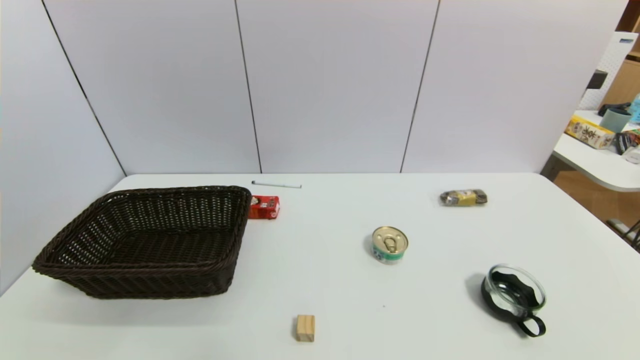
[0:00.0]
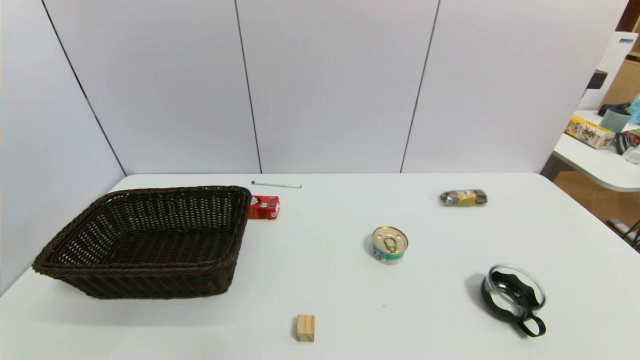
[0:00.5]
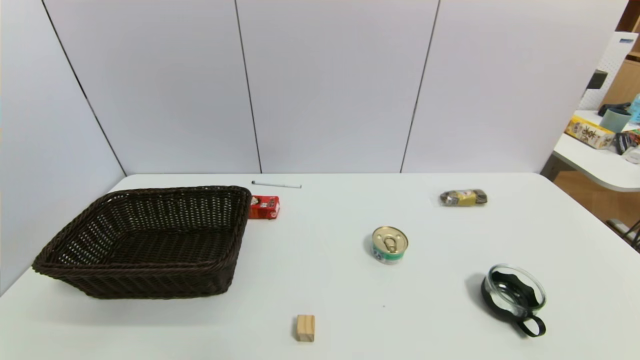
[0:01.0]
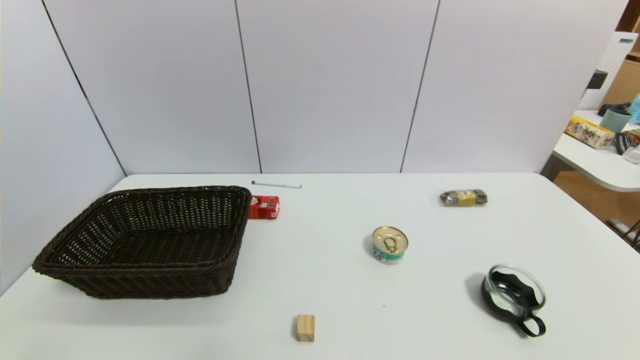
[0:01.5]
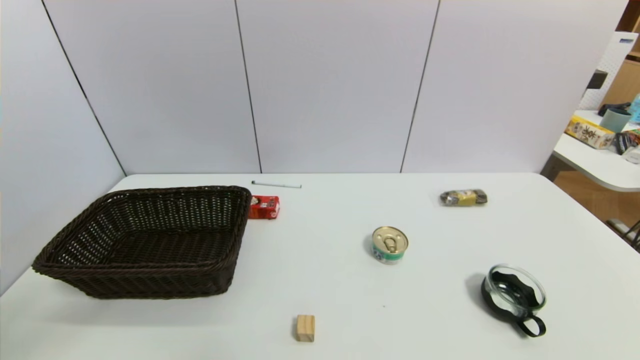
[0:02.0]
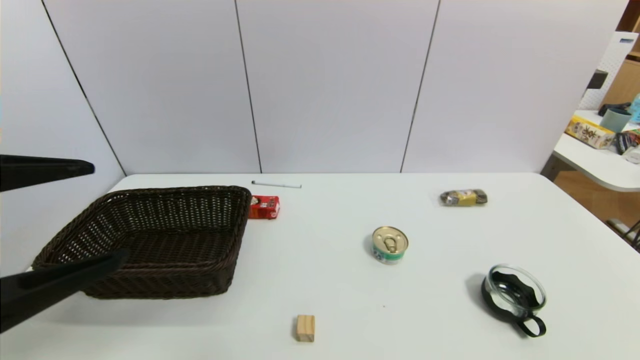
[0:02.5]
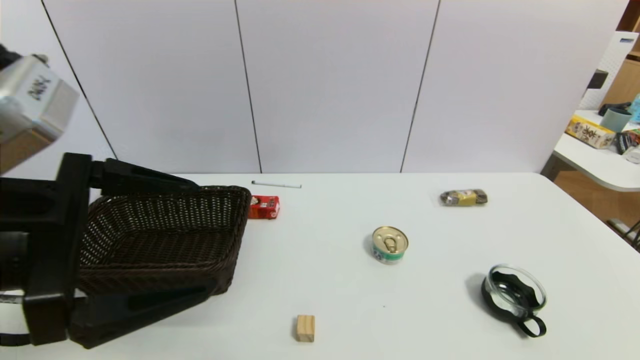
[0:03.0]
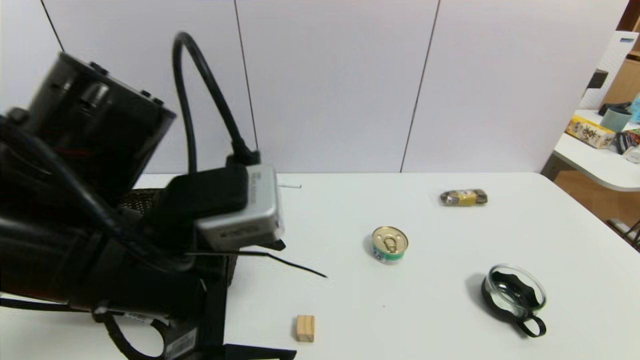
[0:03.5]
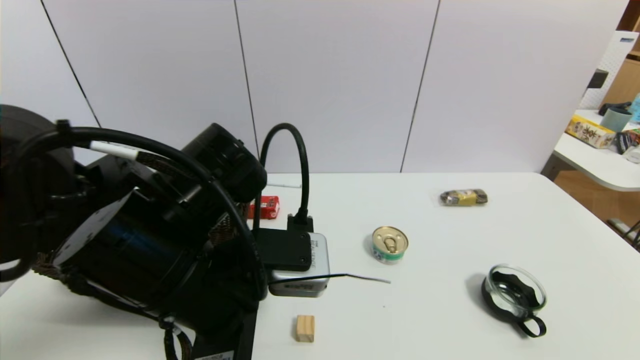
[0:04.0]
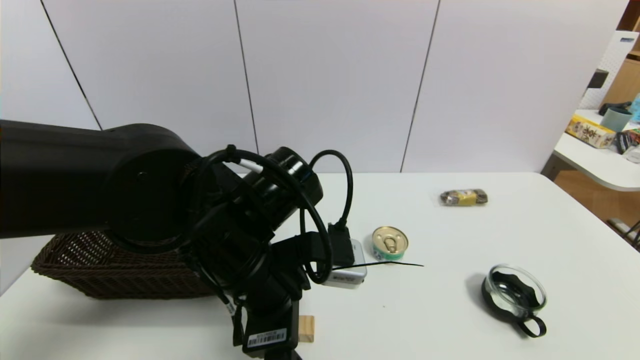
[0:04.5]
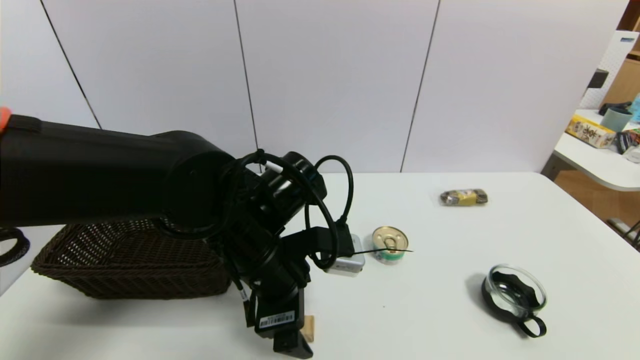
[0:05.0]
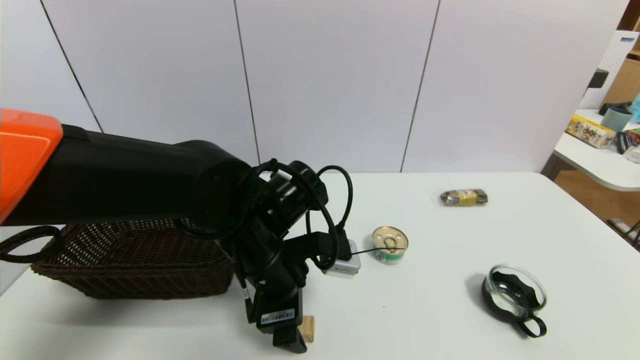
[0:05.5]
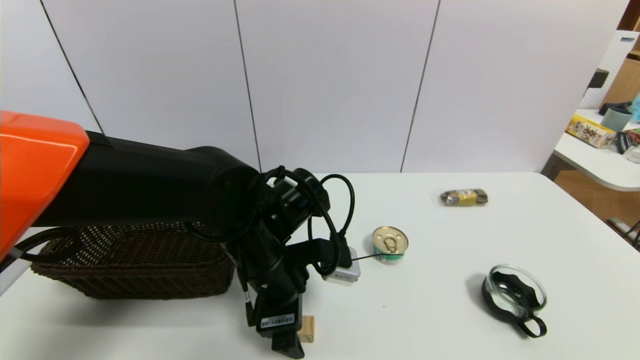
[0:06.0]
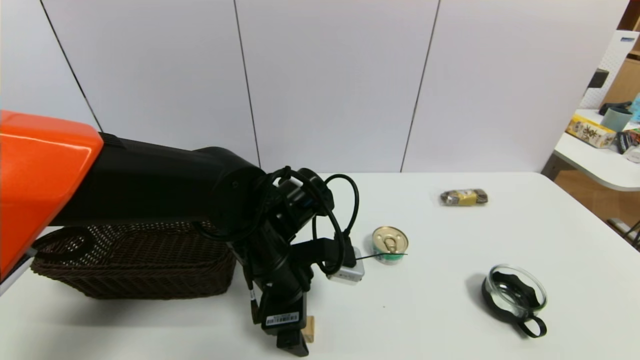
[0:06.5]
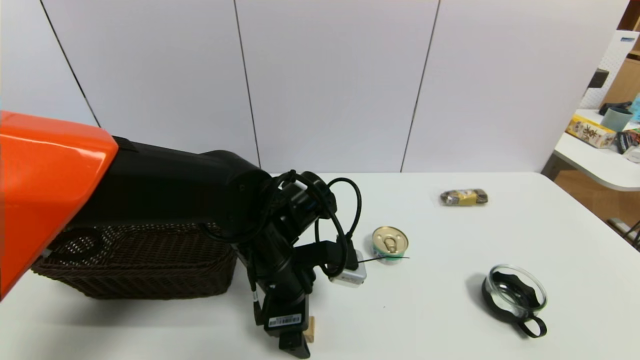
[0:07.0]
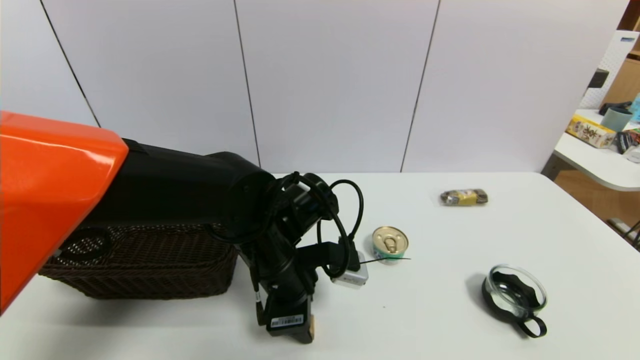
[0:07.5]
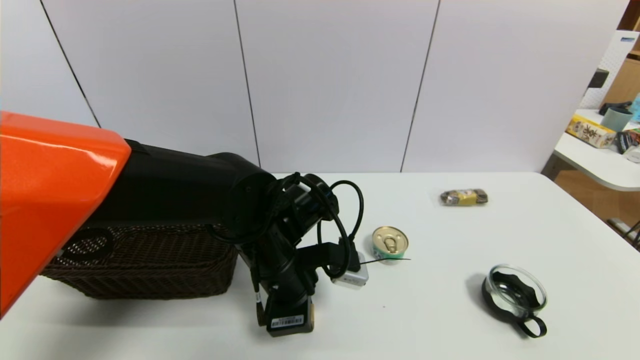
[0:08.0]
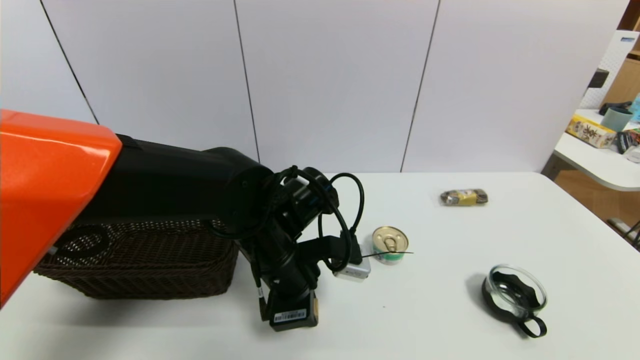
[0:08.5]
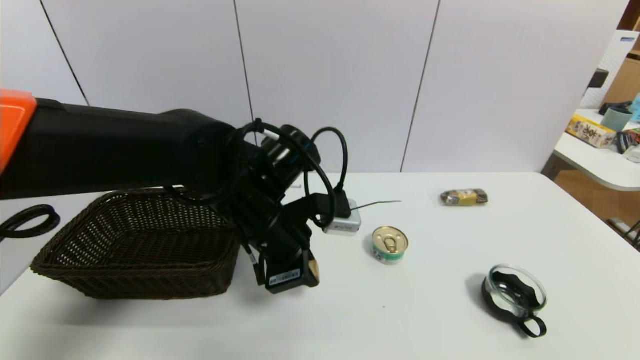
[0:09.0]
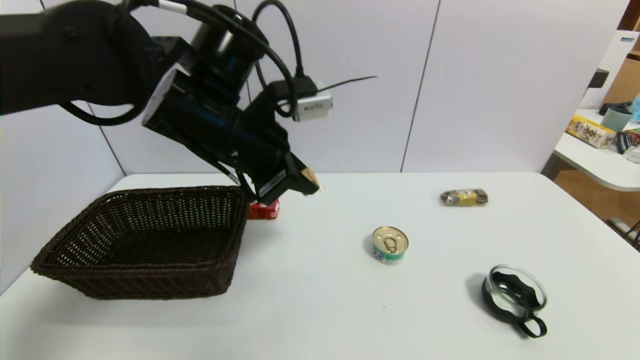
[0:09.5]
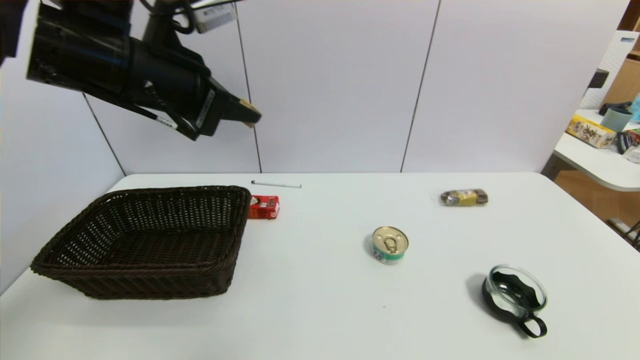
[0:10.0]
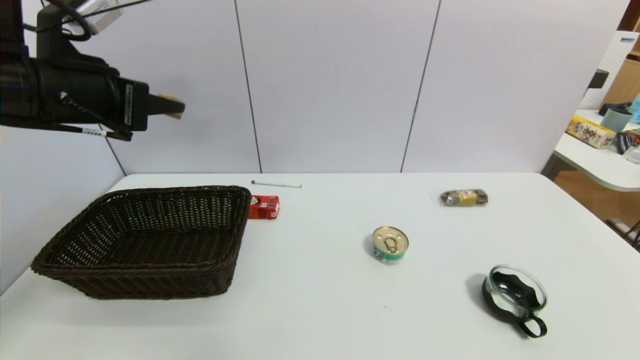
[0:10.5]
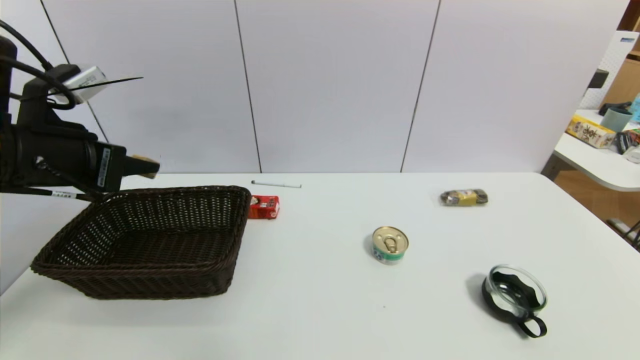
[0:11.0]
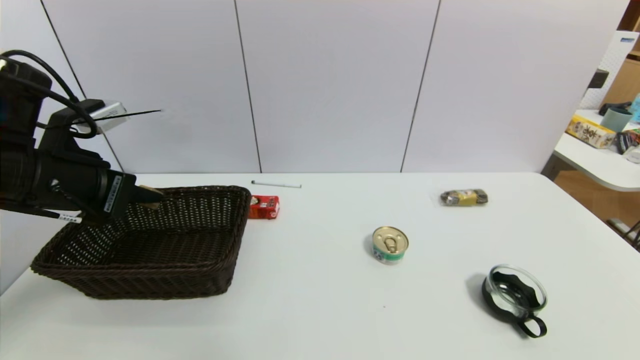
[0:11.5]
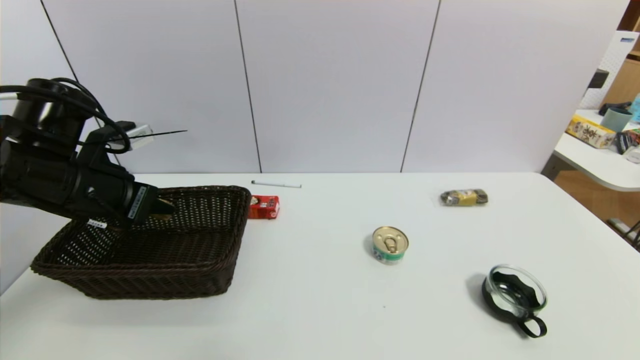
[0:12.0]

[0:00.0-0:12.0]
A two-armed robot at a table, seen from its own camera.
Task of the whole recording: use a gripper to pick the target object and place on the brown basket.
Step, 0:00.0 to 0:07.5: Grasp the square wooden block with the left gripper.
0:02.0 to 0:04.0: The left gripper moves to the right, forward and downward, approximately 25 cm.
0:04.0 to 0:06.0: The left gripper shifts some 10 cm forward and downward.
0:06.0 to 0:08.0: The left gripper closes up.
0:08.0 to 0:10.0: The left gripper travels upward and to the left by some 25 cm.
0:10.0 to 0:12.0: The left gripper shifts about 15 cm downward and to the left.

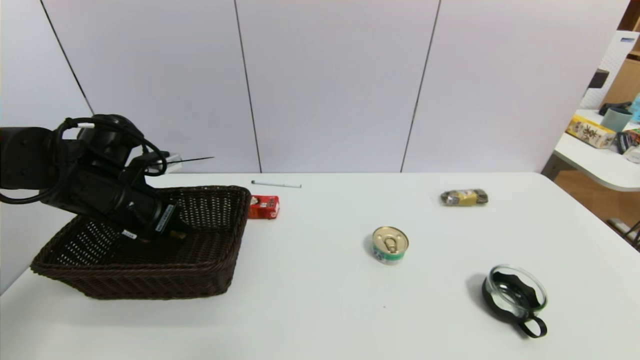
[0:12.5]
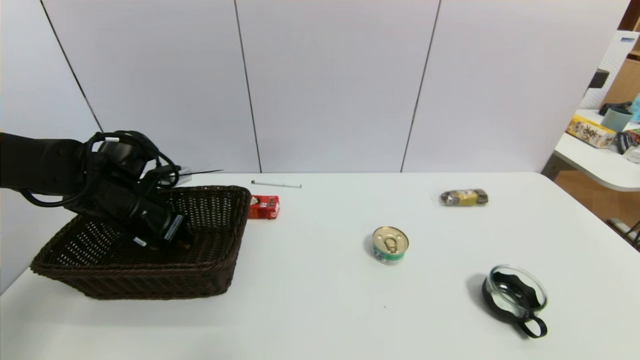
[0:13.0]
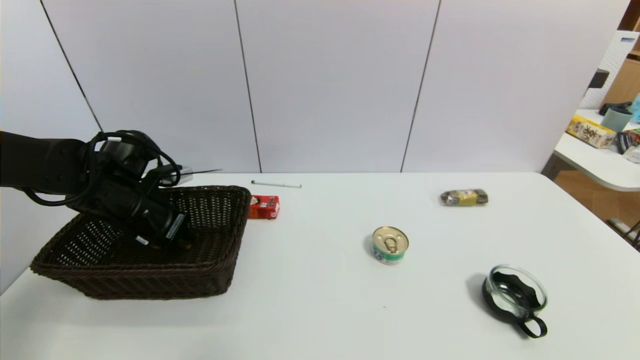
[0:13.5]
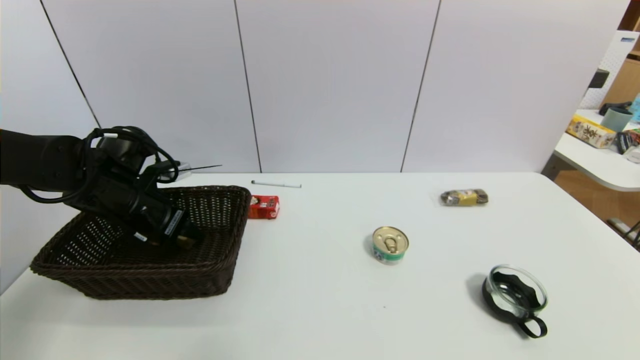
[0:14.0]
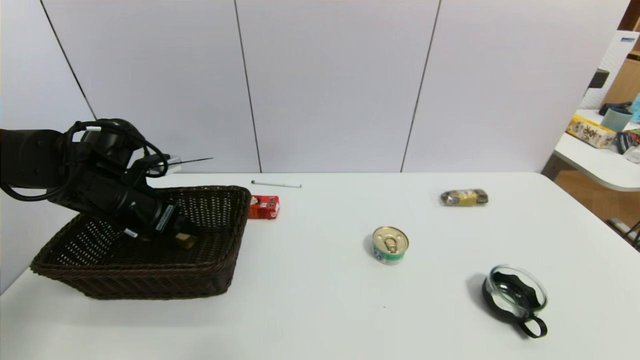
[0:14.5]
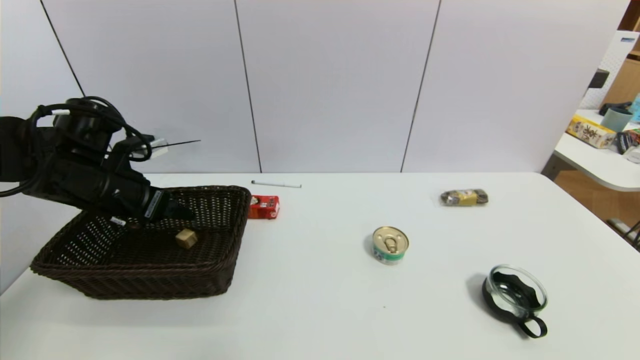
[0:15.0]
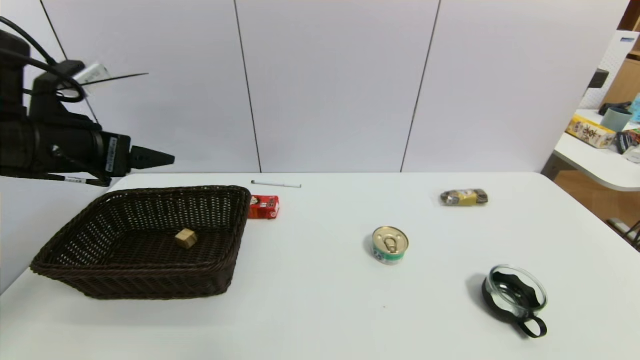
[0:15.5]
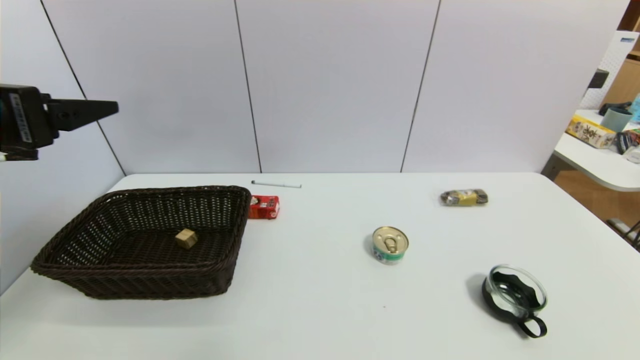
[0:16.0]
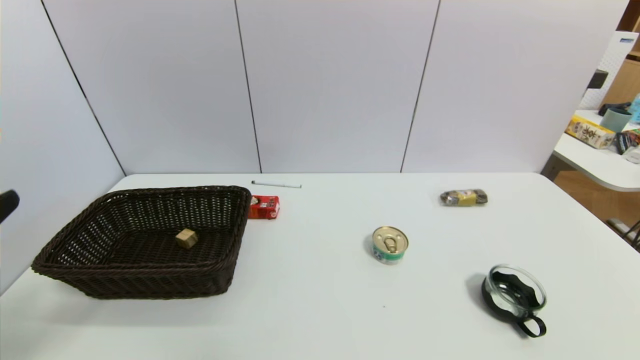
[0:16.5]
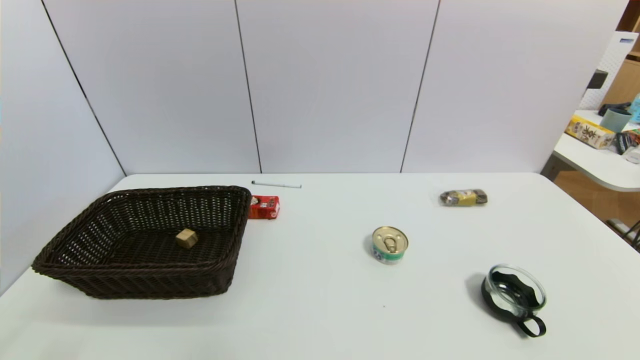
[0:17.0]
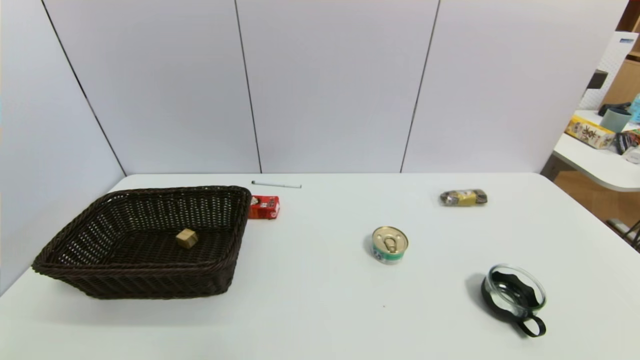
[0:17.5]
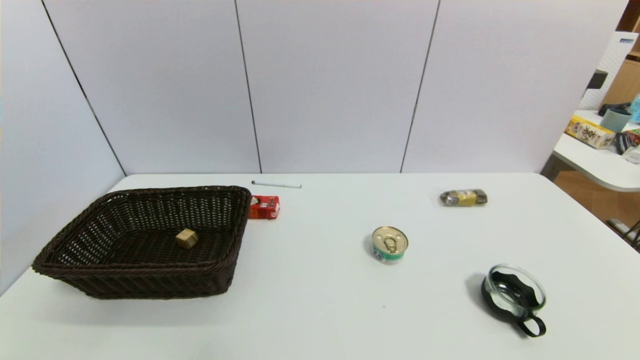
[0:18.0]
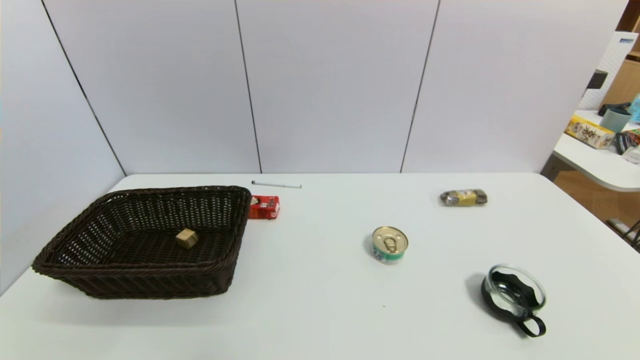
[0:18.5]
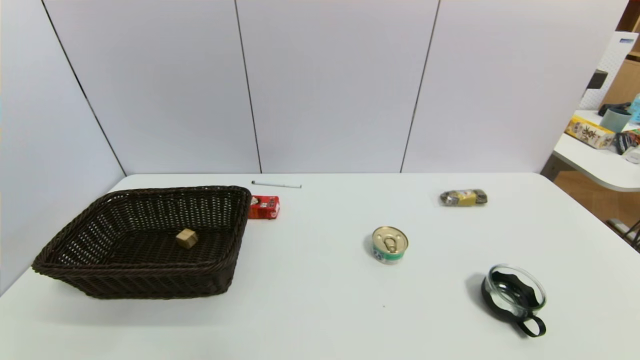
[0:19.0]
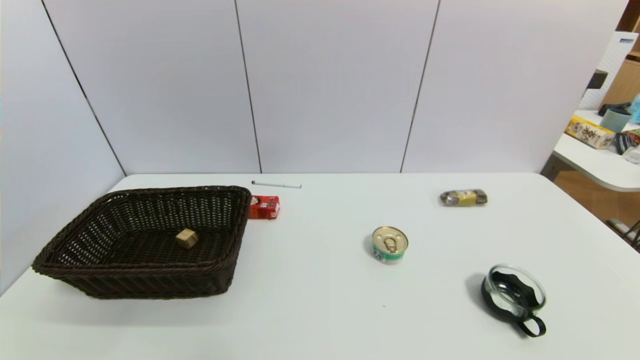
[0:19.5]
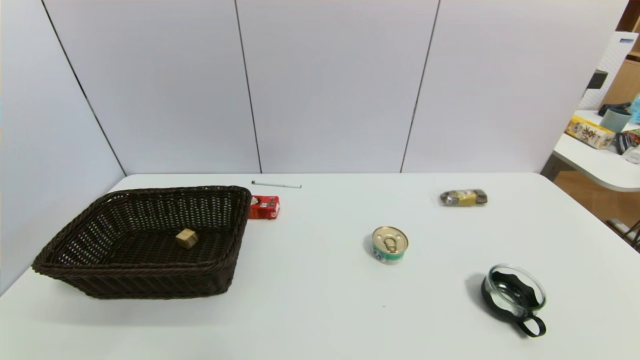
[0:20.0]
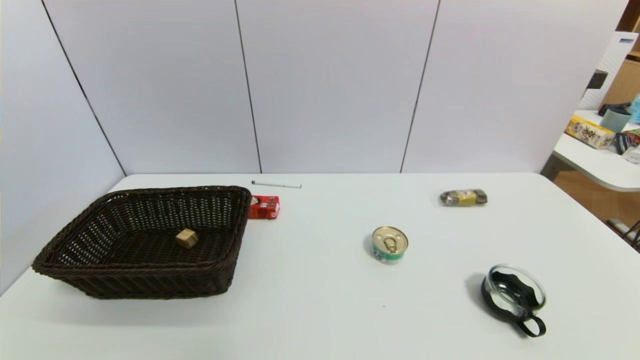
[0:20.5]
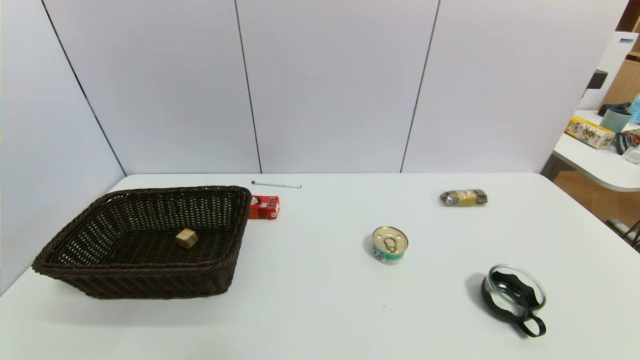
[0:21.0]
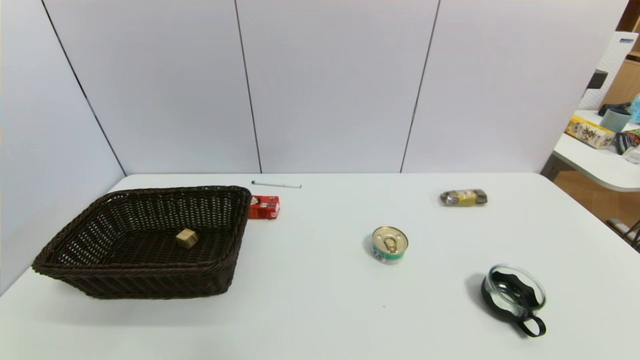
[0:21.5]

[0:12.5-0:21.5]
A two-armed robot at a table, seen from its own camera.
Task of the whole recording: use a gripper to pick the target object and place on the brown basket.
Step, 0:12.5 to 0:15.0: Place the square wooden block into the basket with the left gripper.
0:12.5 to 0:14.5: The left gripper opens its fingers.
0:14.5 to 0:17.0: The left gripper moves backward, roughly 35 cm.
0:19.5 to 0:21.5: Both grippers stay put.
